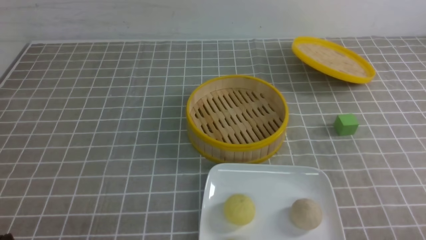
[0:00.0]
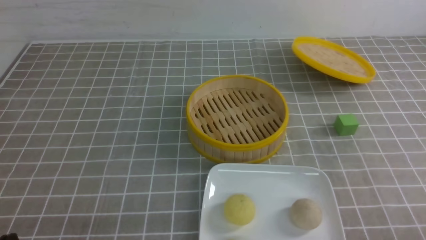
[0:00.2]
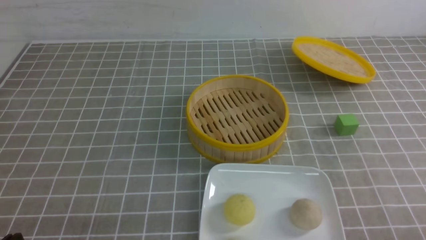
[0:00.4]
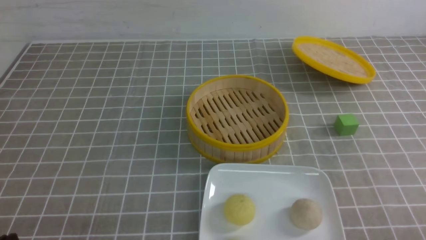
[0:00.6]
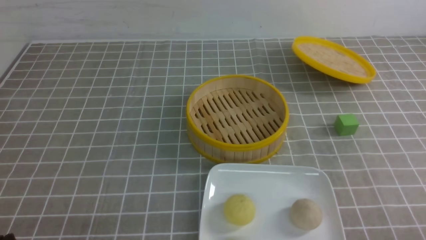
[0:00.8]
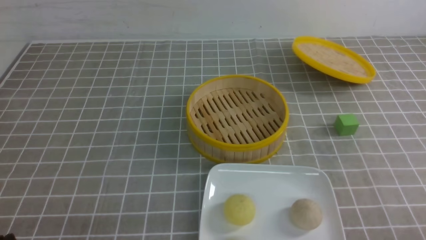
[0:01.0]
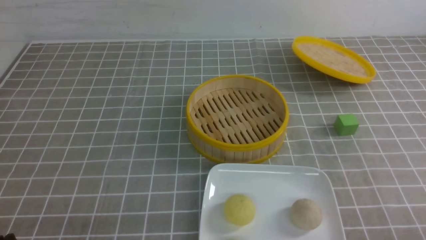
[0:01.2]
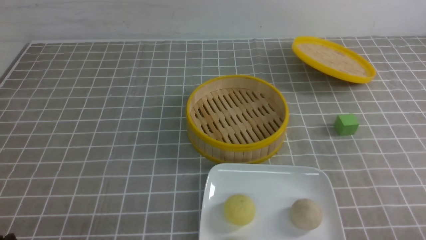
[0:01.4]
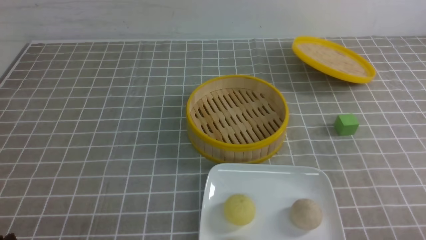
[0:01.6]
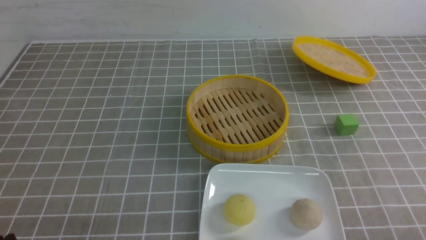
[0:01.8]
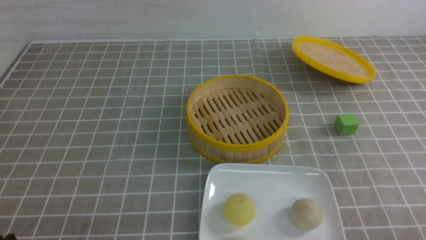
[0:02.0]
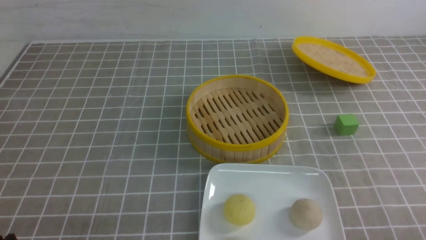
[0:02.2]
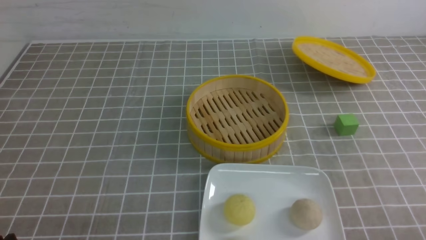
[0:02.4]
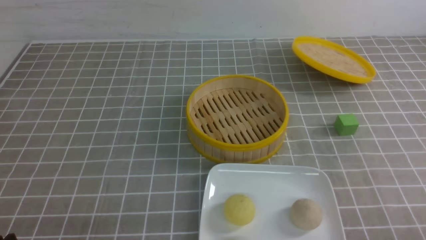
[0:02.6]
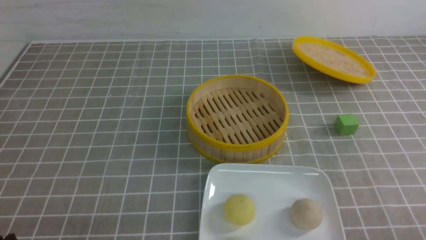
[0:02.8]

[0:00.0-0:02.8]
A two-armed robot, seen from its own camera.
0:00.0 to 0:02.8: Both grippers stay put.

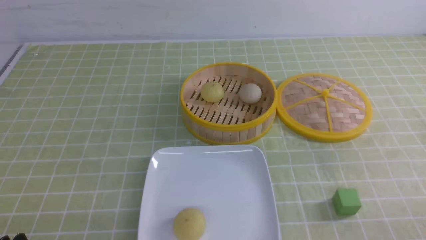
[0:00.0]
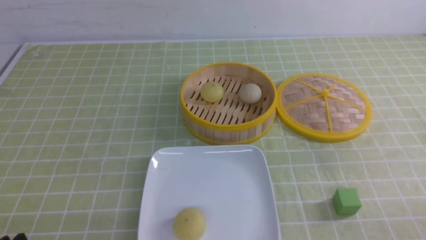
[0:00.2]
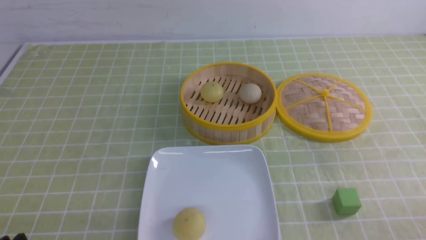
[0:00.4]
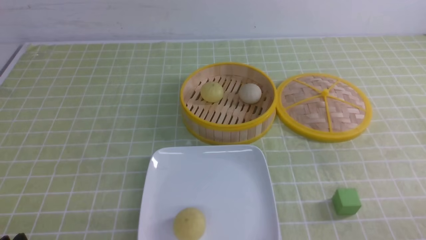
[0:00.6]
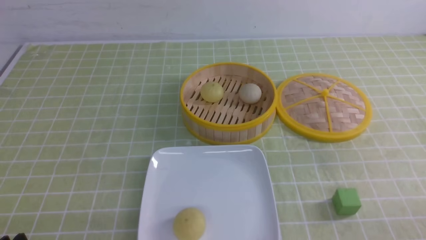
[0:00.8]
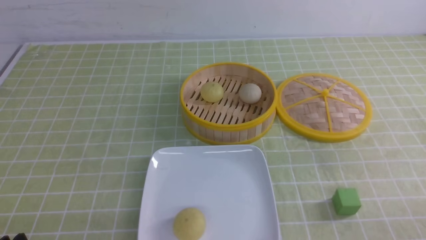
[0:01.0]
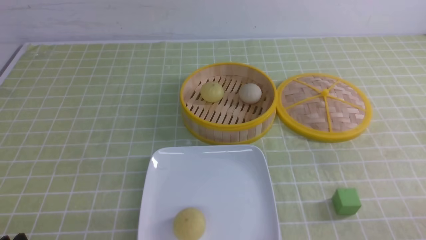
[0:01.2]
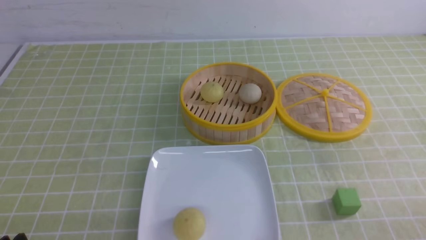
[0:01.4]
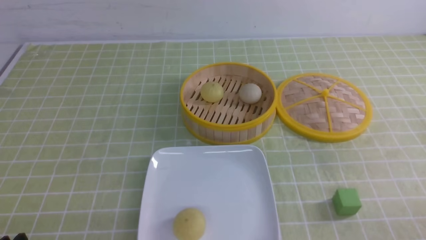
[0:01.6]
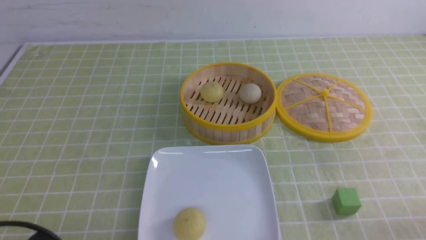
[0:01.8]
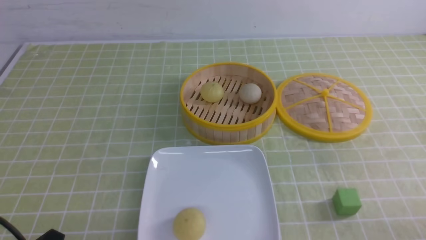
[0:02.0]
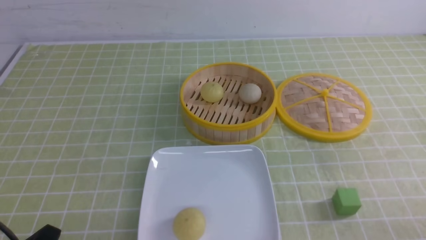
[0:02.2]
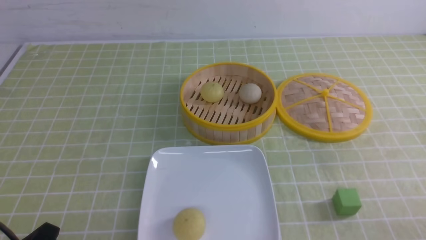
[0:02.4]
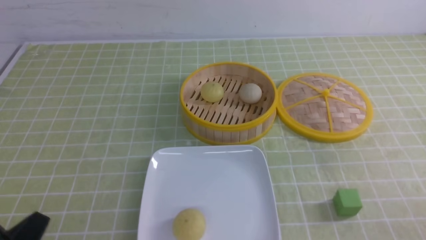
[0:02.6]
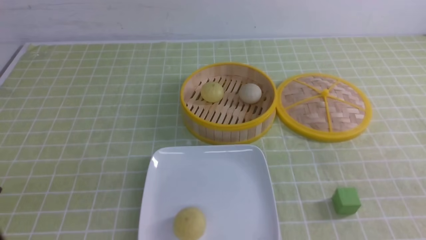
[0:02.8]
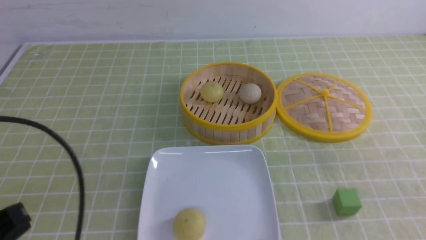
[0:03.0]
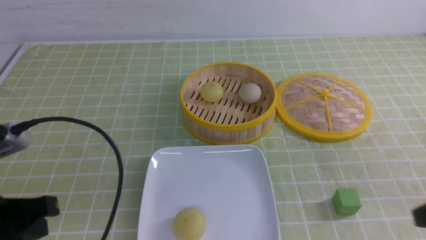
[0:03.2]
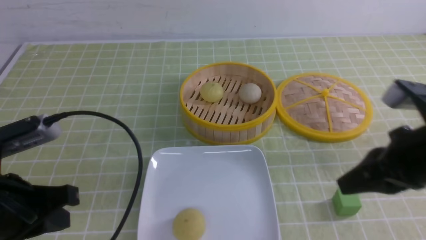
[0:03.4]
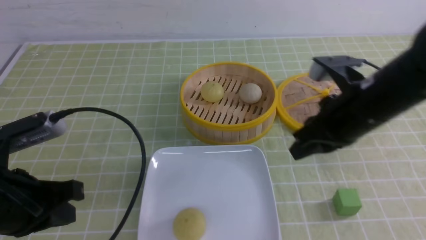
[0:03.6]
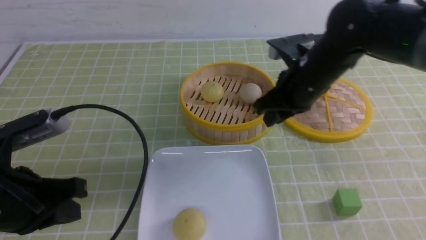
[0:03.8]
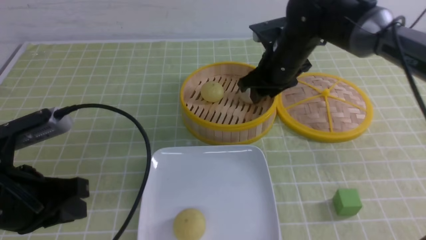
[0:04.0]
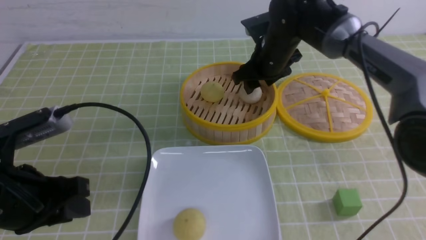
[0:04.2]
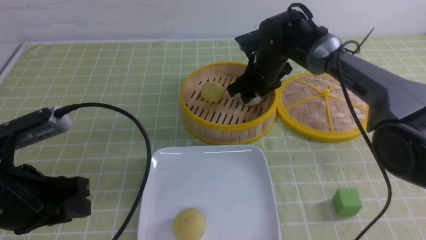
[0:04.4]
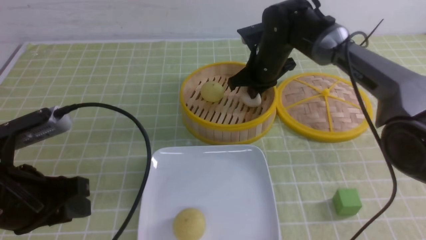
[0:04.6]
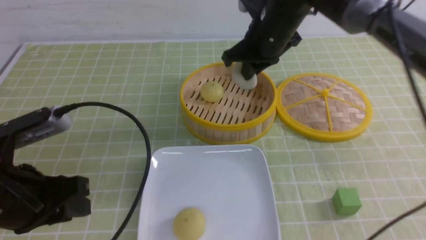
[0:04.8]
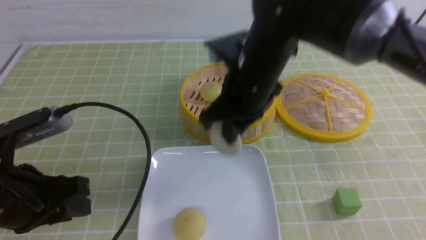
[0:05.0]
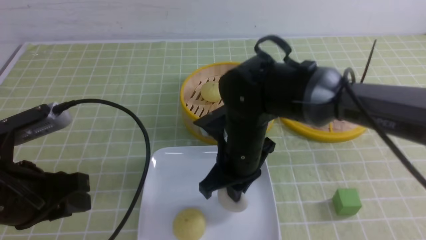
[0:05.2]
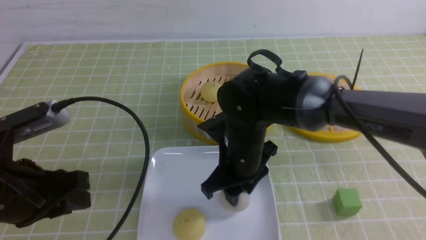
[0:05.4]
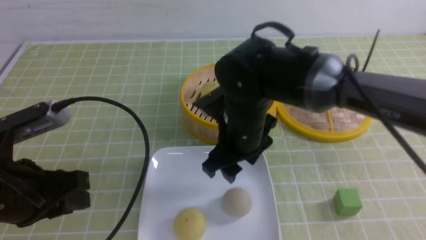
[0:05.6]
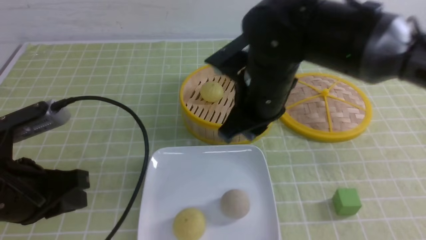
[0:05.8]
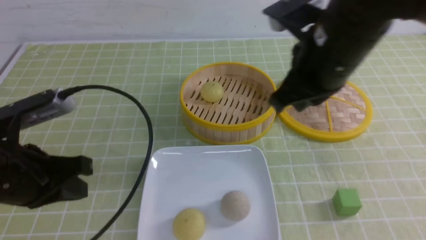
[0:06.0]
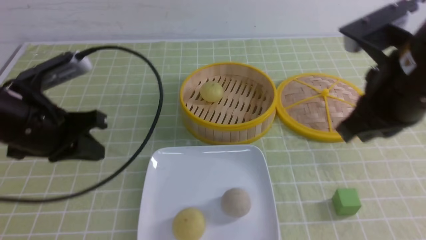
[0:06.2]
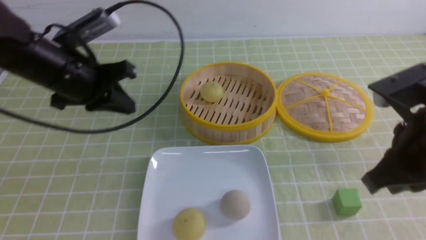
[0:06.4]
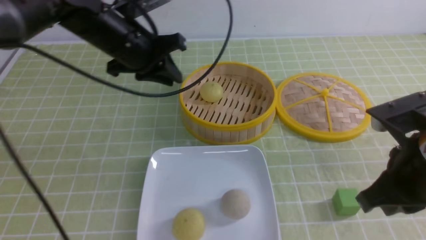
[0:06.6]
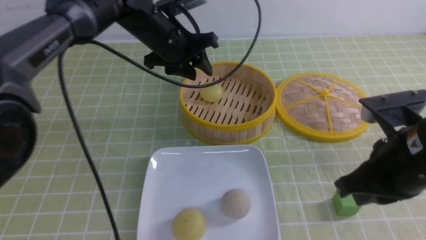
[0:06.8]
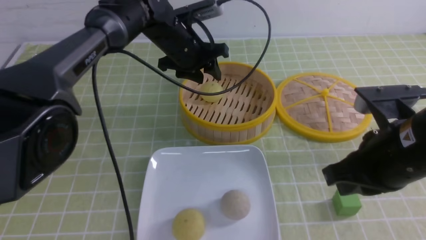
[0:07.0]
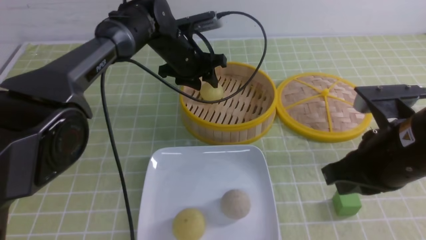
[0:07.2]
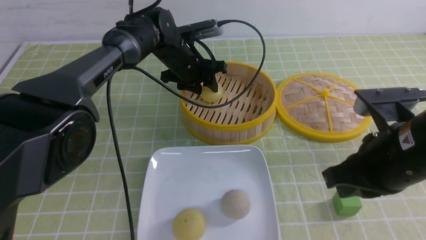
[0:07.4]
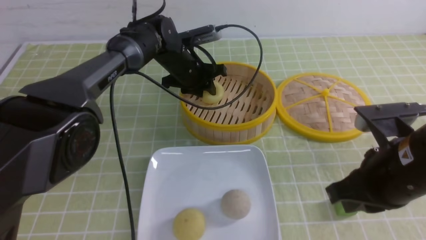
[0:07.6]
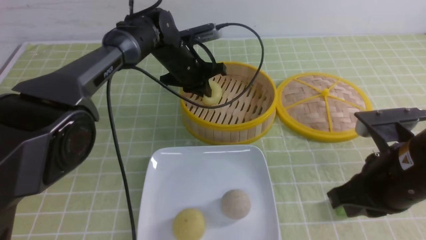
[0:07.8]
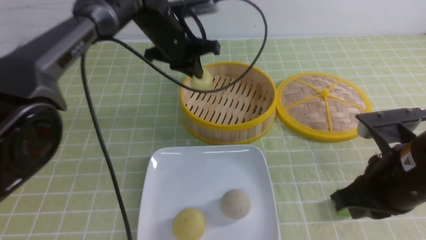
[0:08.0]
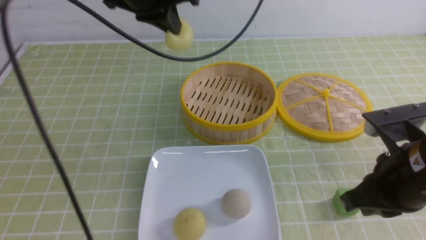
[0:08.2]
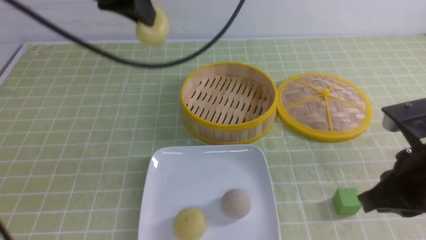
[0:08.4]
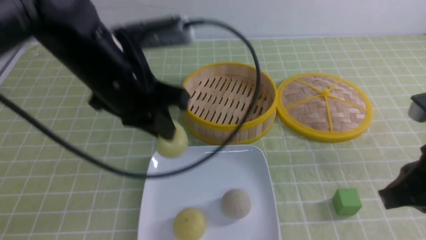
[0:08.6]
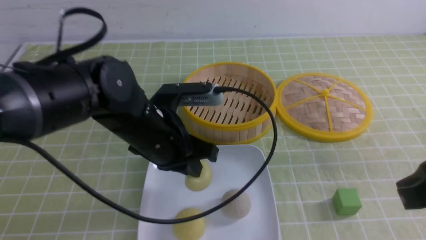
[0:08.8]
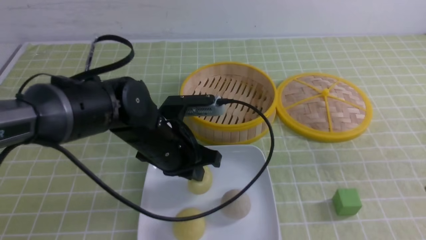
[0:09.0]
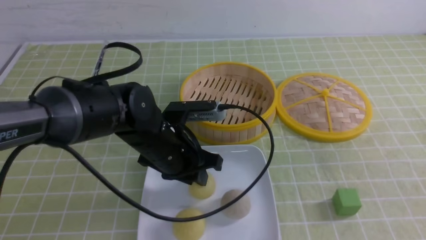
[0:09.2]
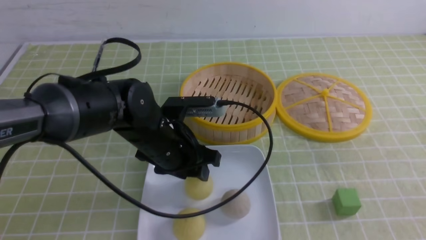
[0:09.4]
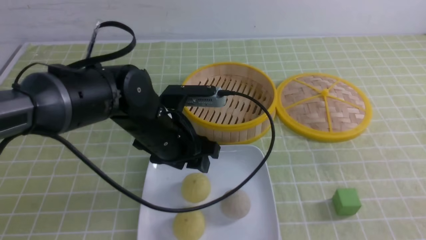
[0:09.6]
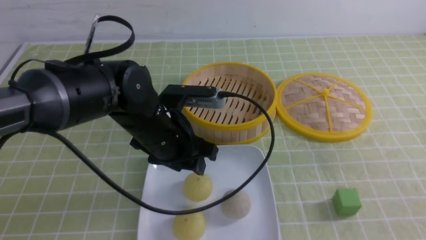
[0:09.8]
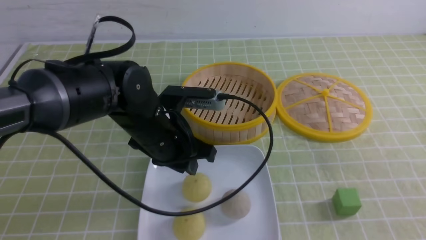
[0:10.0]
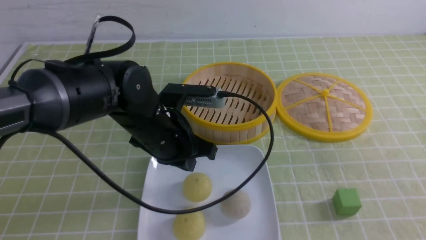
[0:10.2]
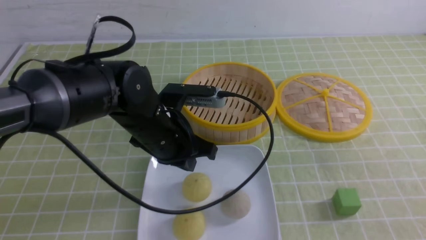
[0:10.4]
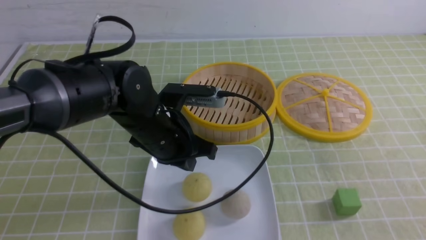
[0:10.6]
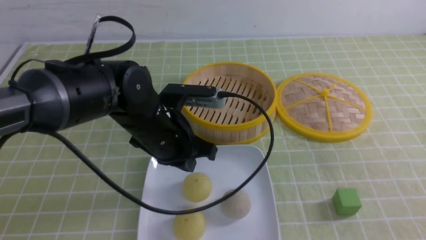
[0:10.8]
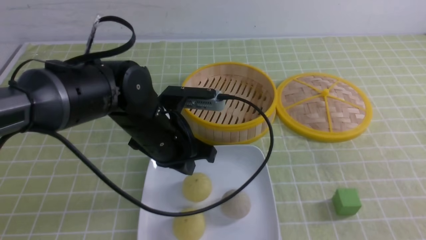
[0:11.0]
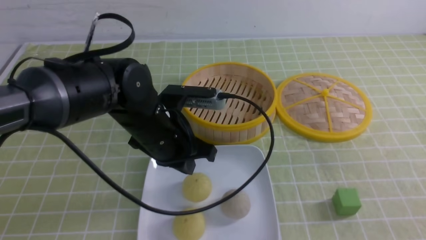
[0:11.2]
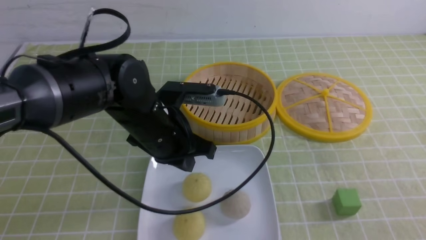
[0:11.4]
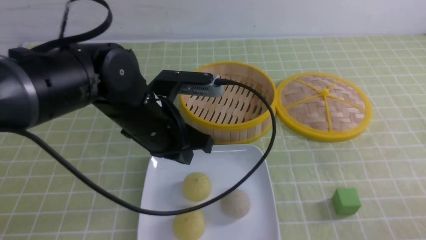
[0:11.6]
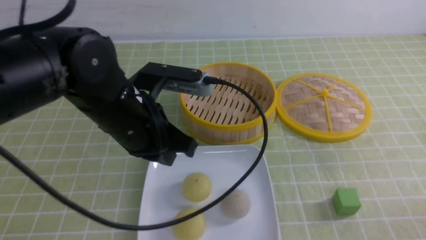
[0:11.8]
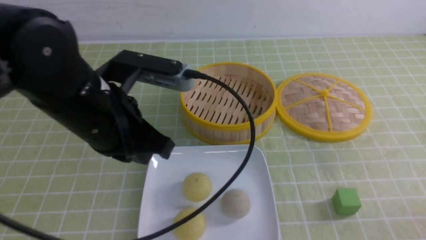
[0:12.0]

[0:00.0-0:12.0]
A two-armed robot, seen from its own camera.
Step, 0:00.0 to 0:04.4: use the right arm to grab the steamed stuffed bun that is closest to it.
Step, 0:04.6 to 0:05.4: use the right arm to put the steamed stuffed bun into the plate.
Step, 0:05.6 to 0:07.6: use the left arm to grab the steamed stuffed bun that is closest to it.
Step, 0:07.8 to 0:09.4: use the left arm to put the steamed stuffed bun into the plate.
0:01.6 to 0:03.0: The left gripper heads upward, covering approximately 10 cm, and closes up.
0:03.0 to 0:04.4: The left gripper heads forward, covering roughly 10 cm, and opens its fingers. Meanwhile the right gripper travels forward and to the left by about 40 cm, and opens its fingers.
0:04.4 to 0:06.0: The right gripper heads backward and upward, covering roughly 25 cm, and closes its fingers. Meanwhile the left gripper closes up.
0:06.0 to 0:07.6: The right gripper travels downward, backward and to the right by roughly 15 cm. Meanwhile the left gripper goes roughly 35 cm forward and to the right, and opens its fingers.
0:07.6 to 0:09.0: The left gripper moves backward, approximately 20 cm; the right gripper shifts approximately 15 cm backward, upward and to the right.
0:09.0 to 0:10.4: The left gripper opens and closes again. Meanwhile the right gripper heads backward, covering approximately 5 cm.
0:10.4 to 0:12.0: The right gripper is displaced downward by about 15 cm; the left gripper is displaced upward and backward by some 10 cm.

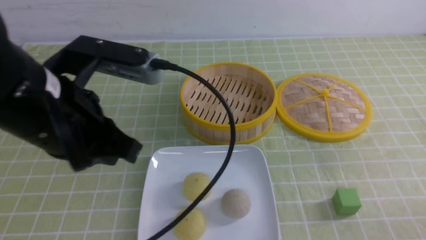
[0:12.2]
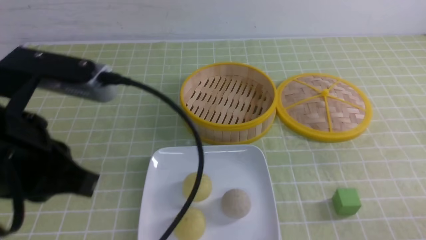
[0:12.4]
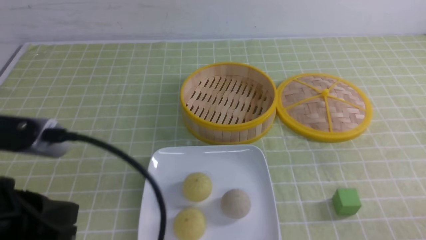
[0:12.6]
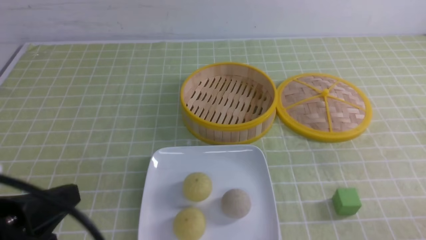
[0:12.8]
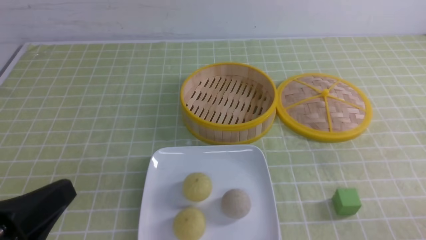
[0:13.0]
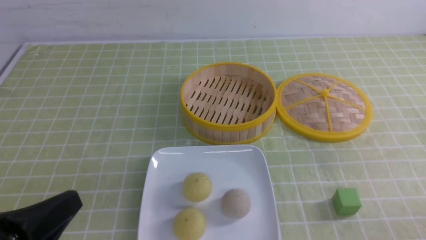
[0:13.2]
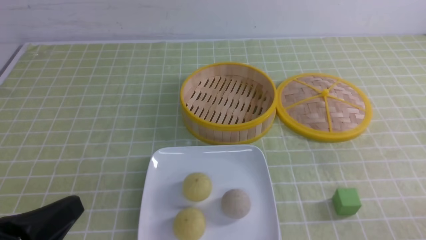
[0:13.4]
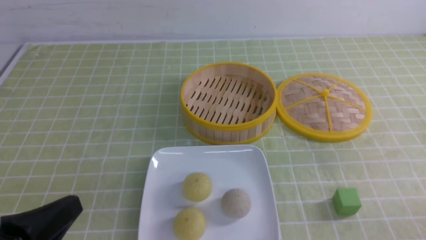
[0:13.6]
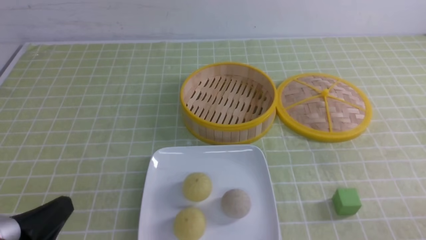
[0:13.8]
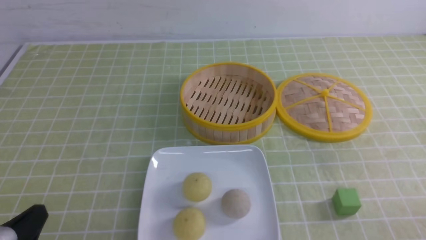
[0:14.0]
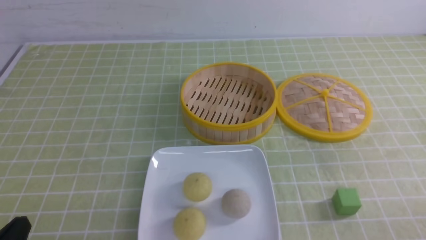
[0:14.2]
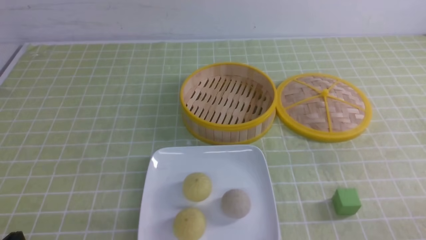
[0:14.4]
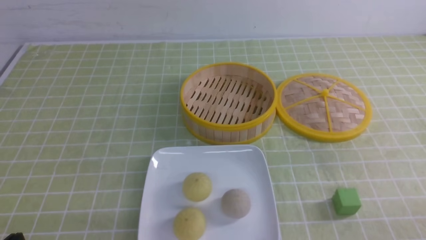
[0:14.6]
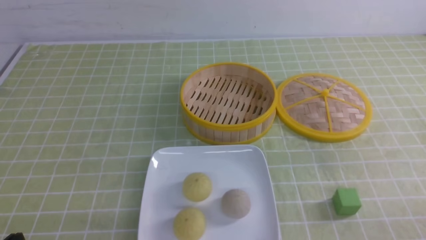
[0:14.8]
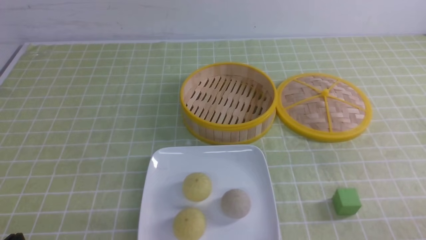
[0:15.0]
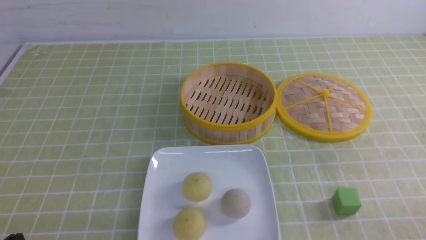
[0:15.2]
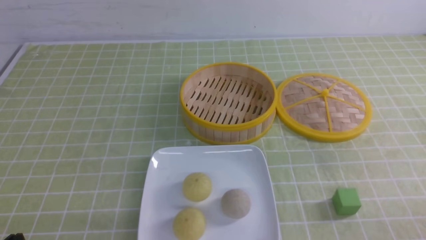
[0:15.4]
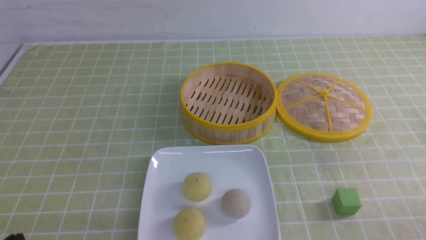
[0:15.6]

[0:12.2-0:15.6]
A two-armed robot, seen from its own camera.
0:12.2 to 0:13.8: The left gripper shifts roughly 20 cm downward, backward and to the left.
0:13.8 to 0:15.6: The left gripper shifts about 5 cm downward.